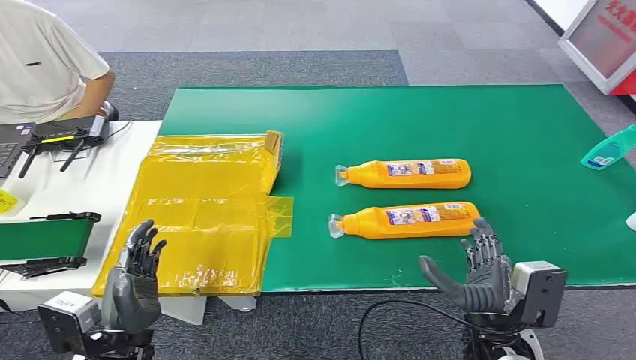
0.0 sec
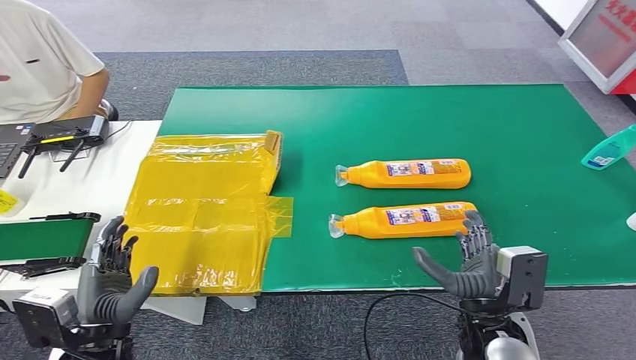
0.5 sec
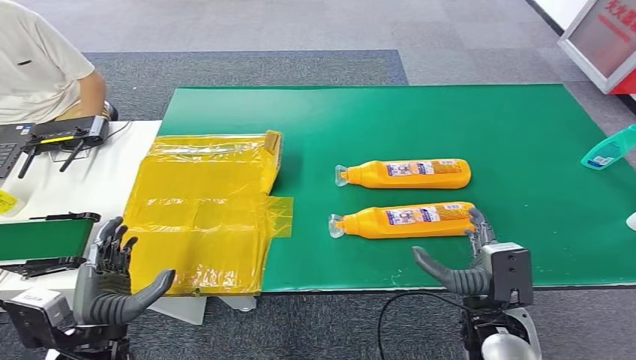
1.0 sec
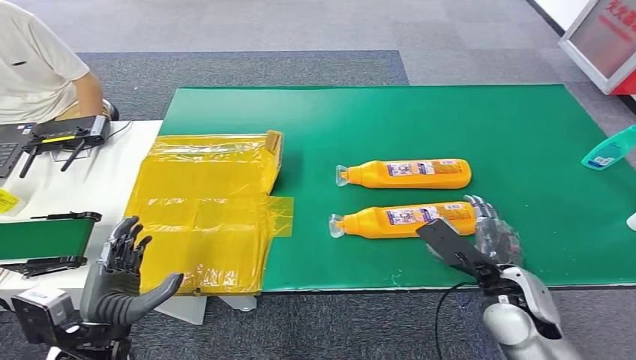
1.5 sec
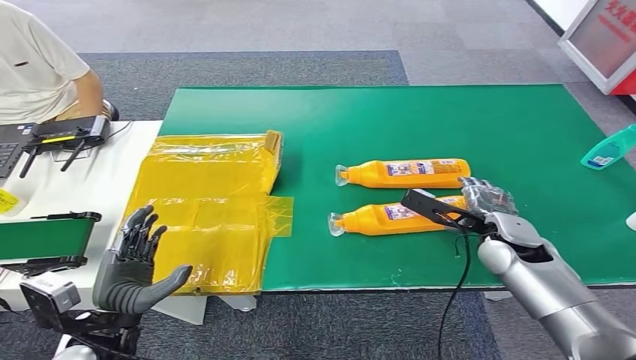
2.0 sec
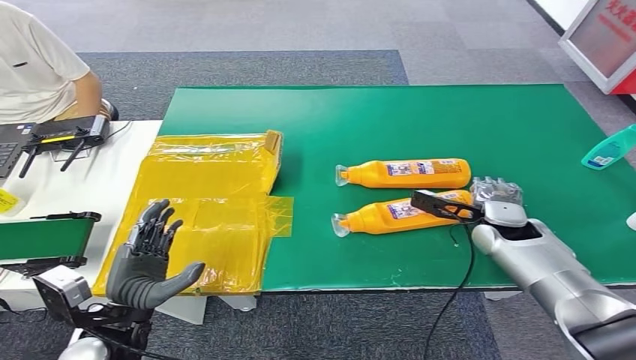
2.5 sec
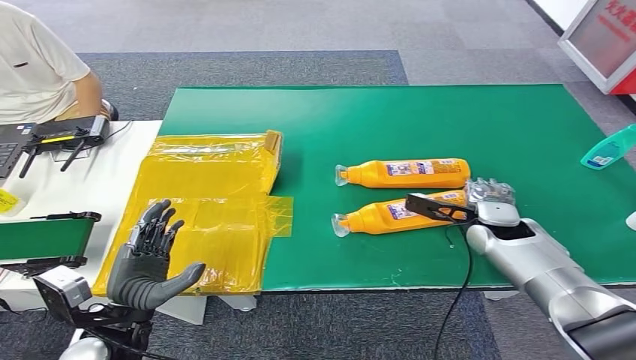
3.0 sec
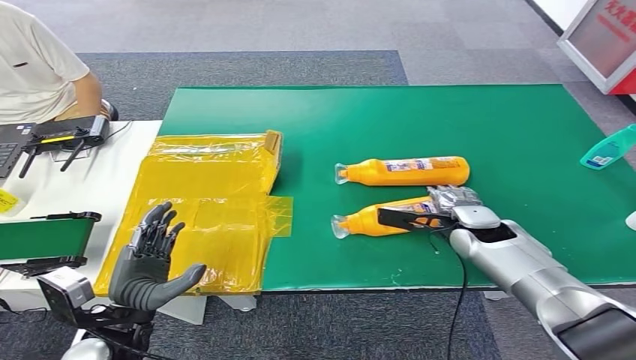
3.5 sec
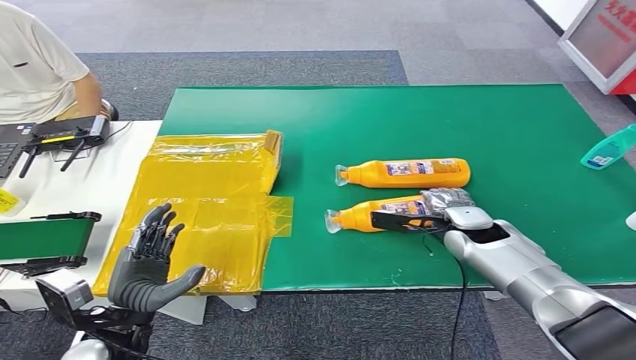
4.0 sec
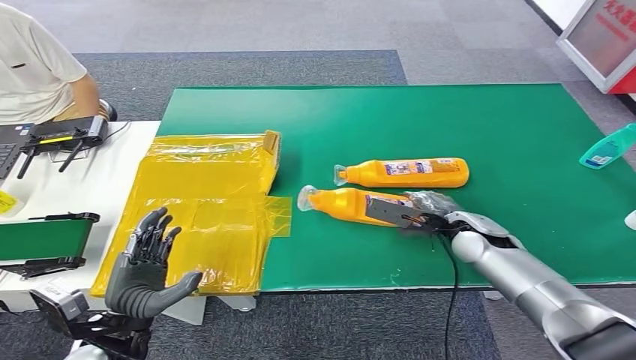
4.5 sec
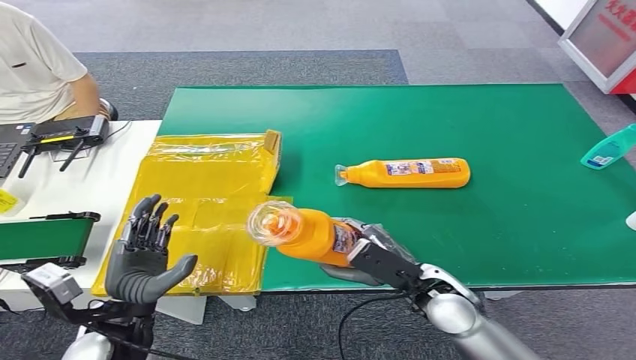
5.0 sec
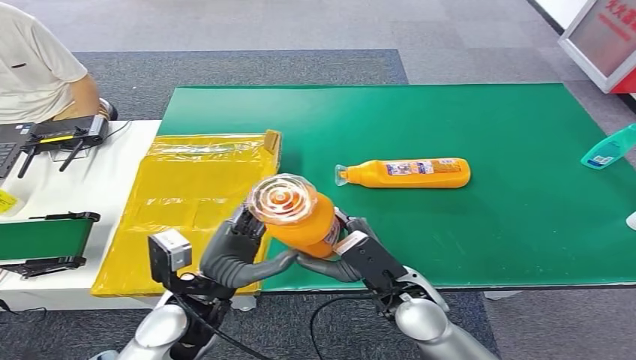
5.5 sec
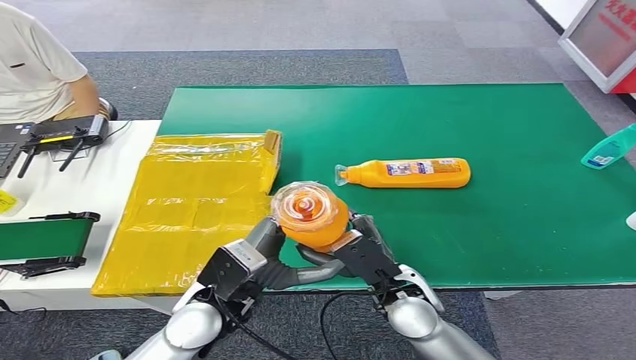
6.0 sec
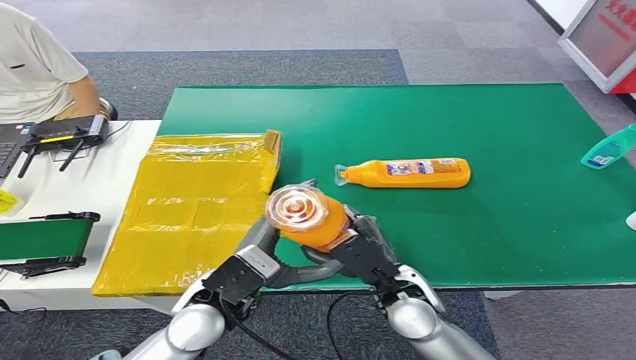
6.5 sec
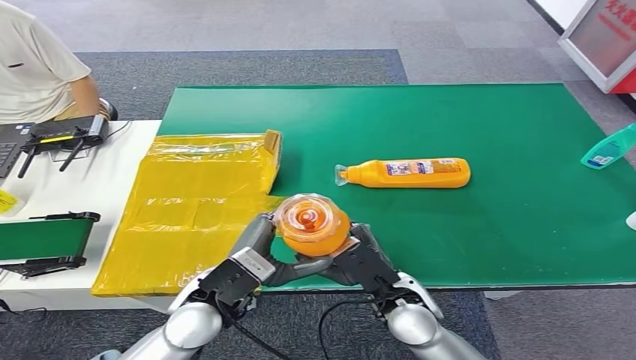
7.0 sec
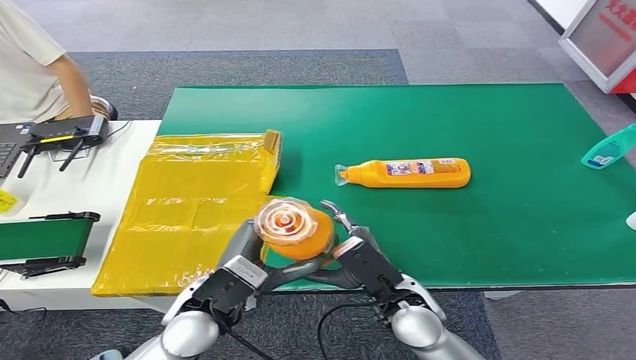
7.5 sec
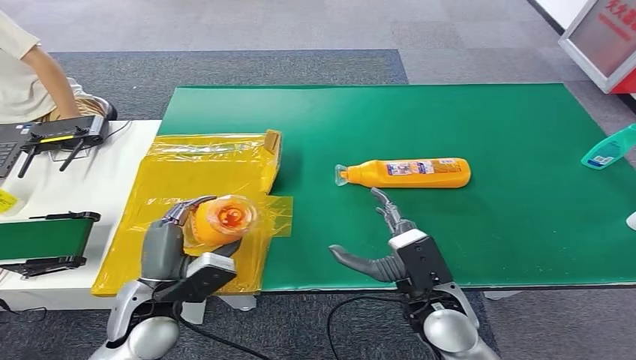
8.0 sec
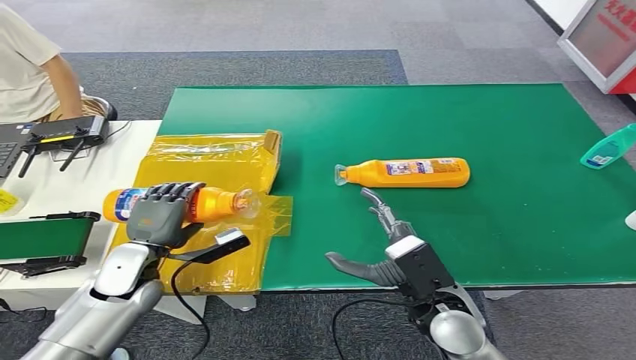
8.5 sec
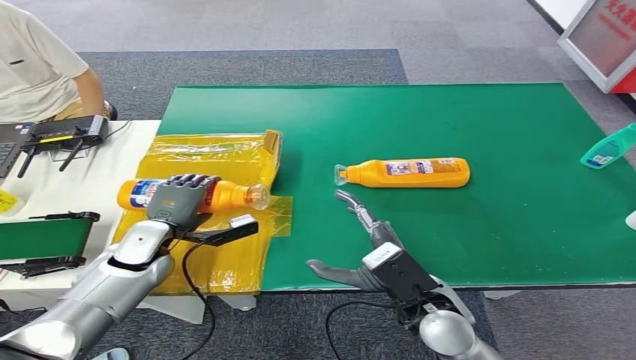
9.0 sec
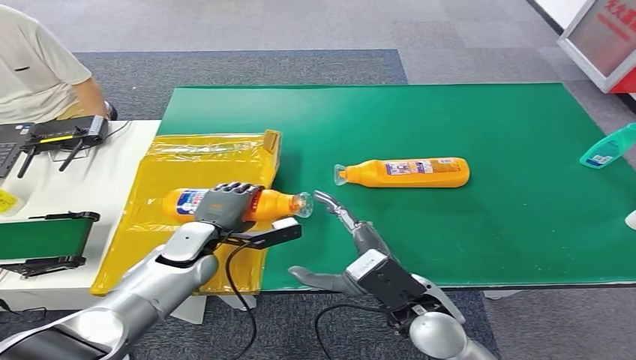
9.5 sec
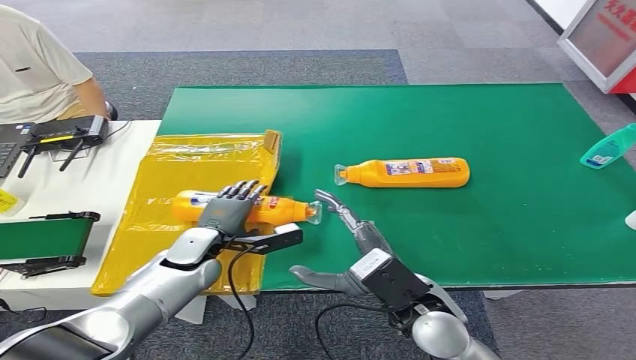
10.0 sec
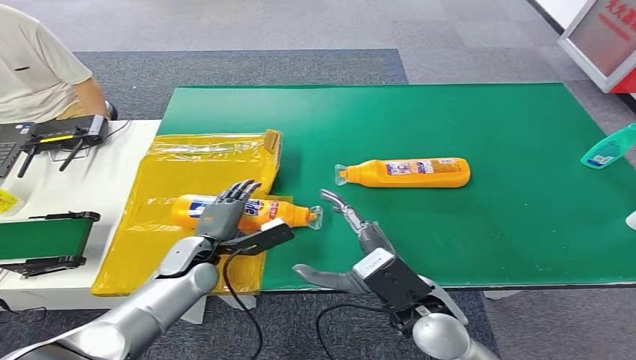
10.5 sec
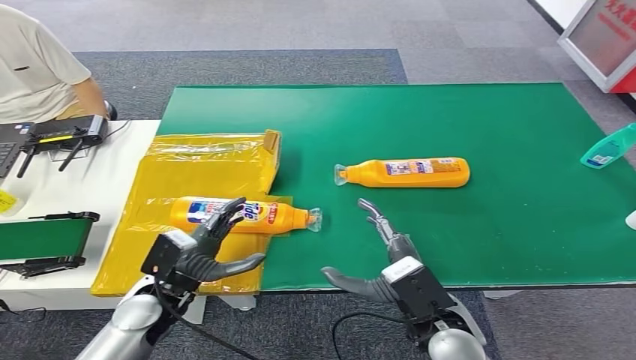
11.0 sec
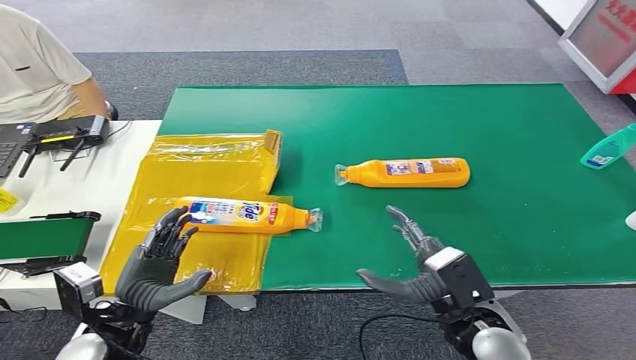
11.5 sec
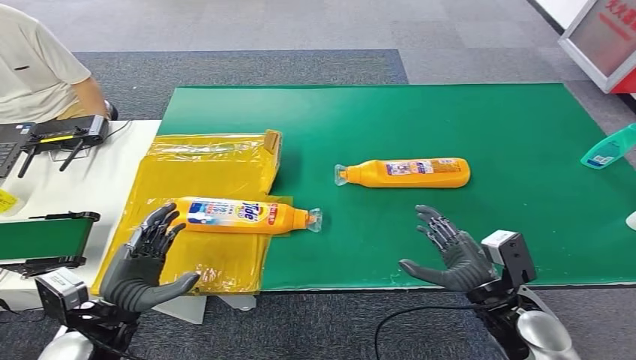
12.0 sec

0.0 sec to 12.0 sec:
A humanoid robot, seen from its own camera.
Step, 0.0 sec to 6.0 sec: Pick up the bottle from the table.
Step, 6.5 sec to 12.0 sec: Turn the bottle to the front side.
2.0 sec to 4.0 sec: The right hand ends up about 5 cm from where it was.
6.0 sec to 8.0 sec: The left hand shifts about 10 cm to the left.
8.0 sec to 10.0 sec: The left hand travels forward and downward by roughly 15 cm.
10.0 sec to 12.0 sec: The left hand goes about 20 cm backward and to the left, while the right hand moves to the right, approximately 15 cm.

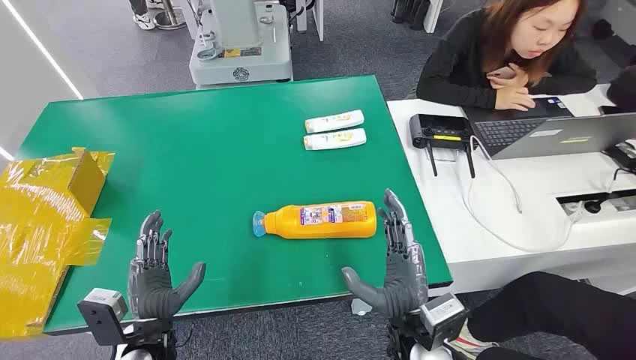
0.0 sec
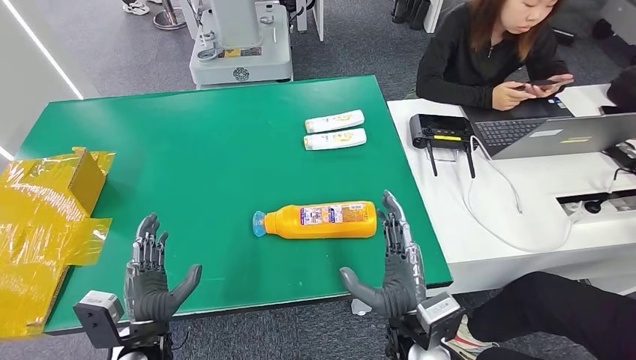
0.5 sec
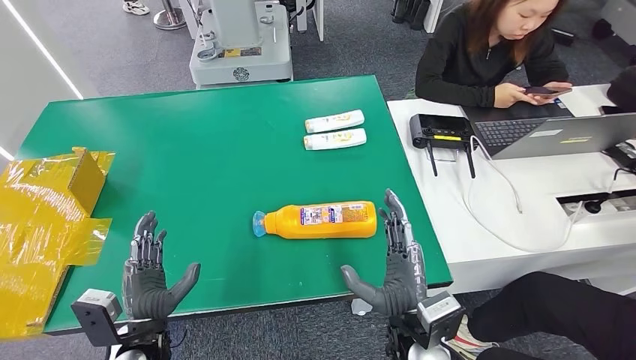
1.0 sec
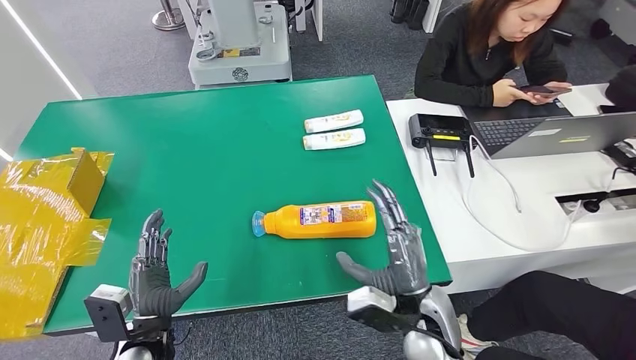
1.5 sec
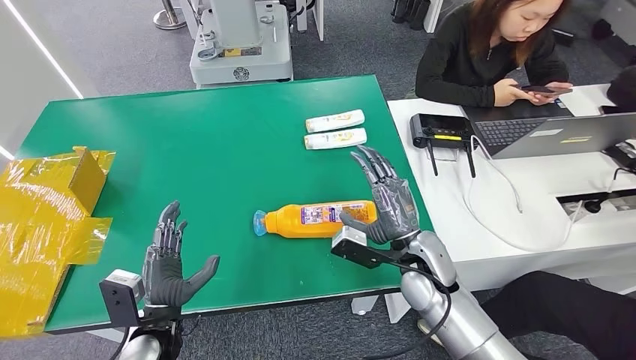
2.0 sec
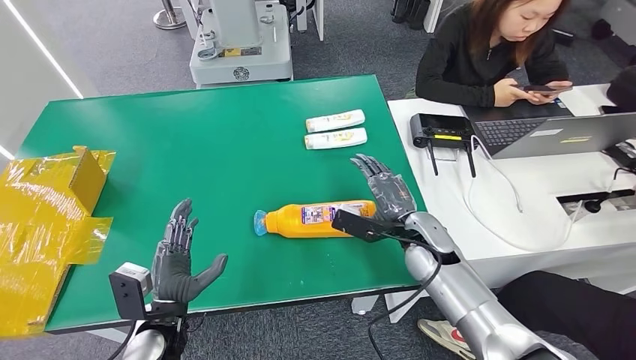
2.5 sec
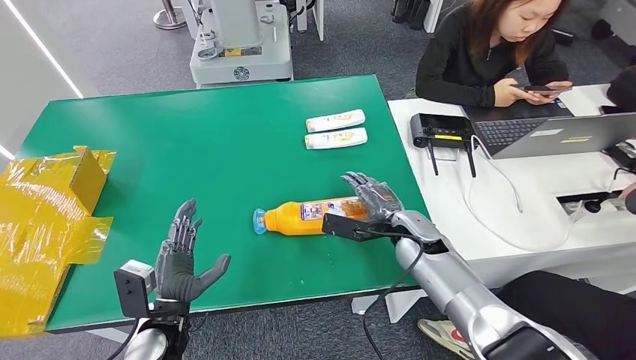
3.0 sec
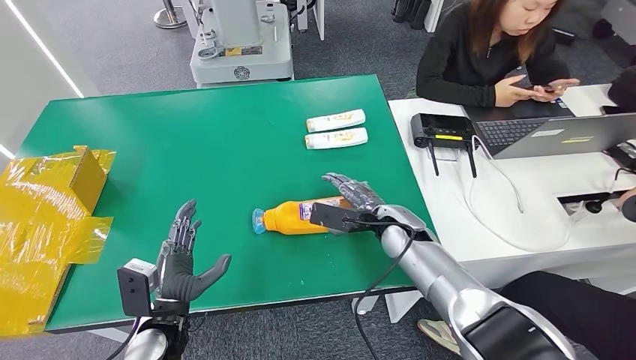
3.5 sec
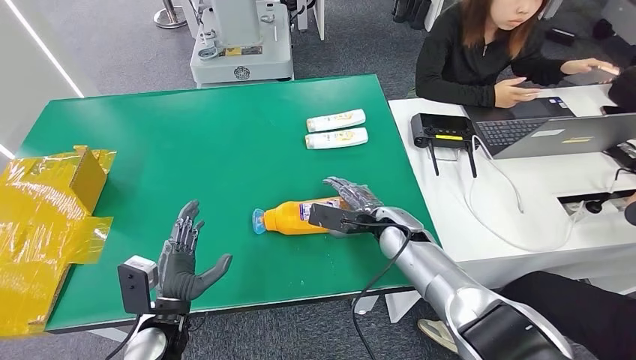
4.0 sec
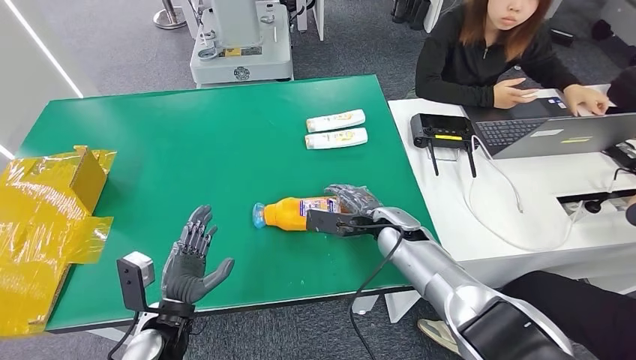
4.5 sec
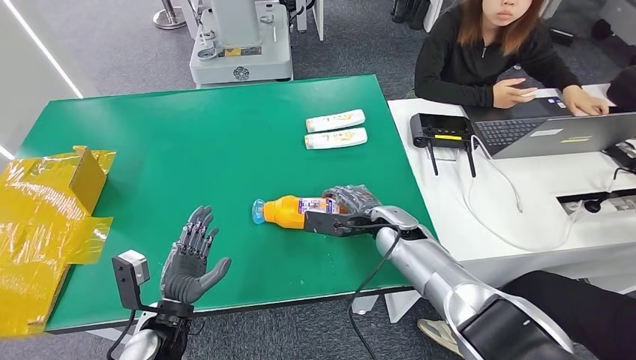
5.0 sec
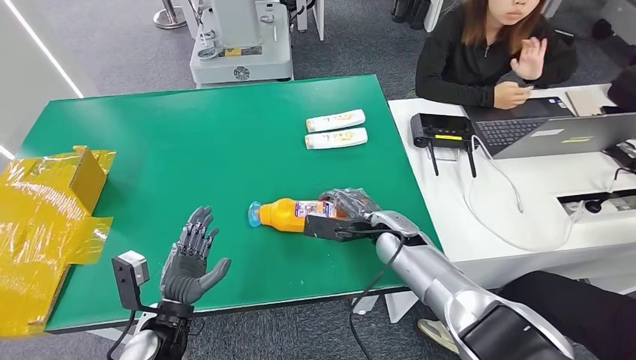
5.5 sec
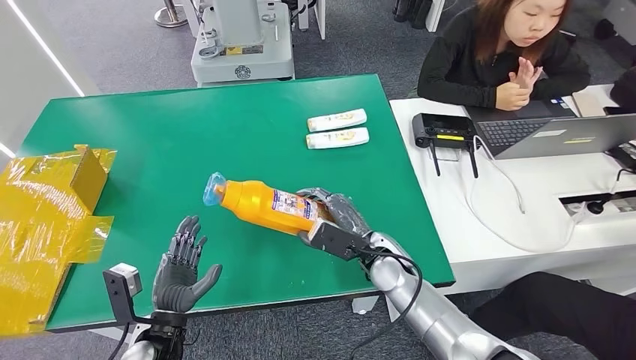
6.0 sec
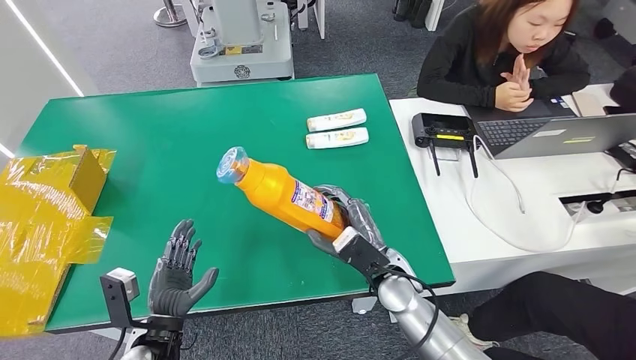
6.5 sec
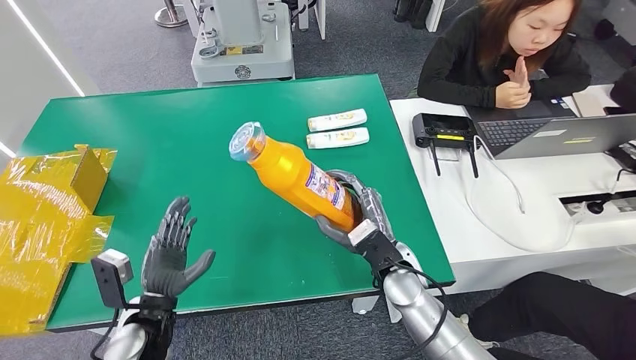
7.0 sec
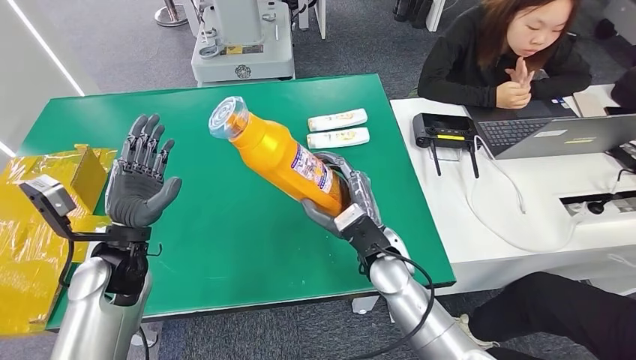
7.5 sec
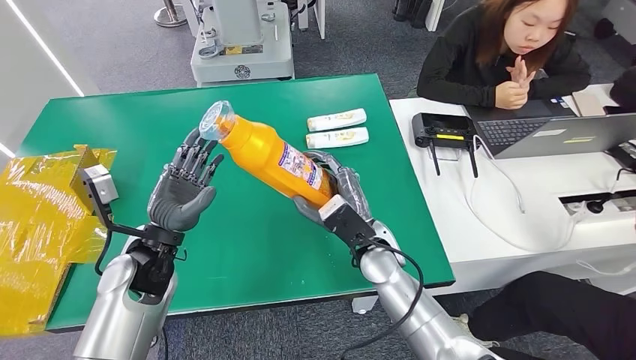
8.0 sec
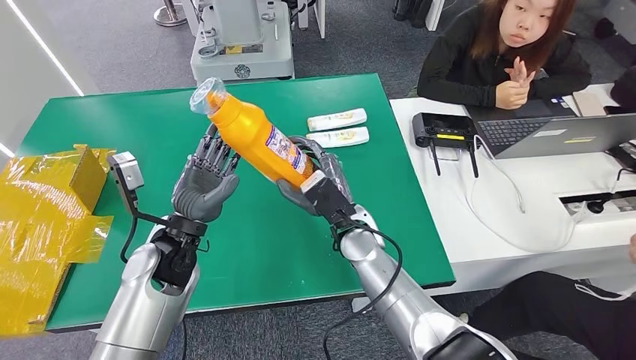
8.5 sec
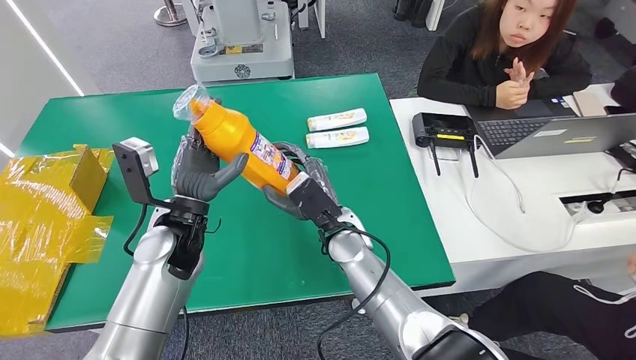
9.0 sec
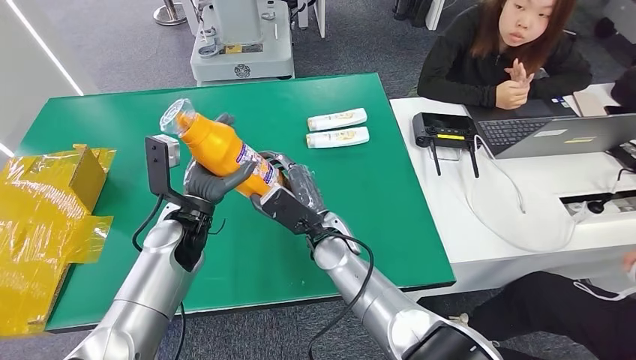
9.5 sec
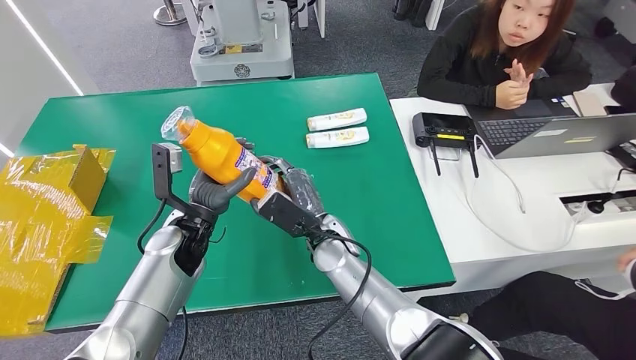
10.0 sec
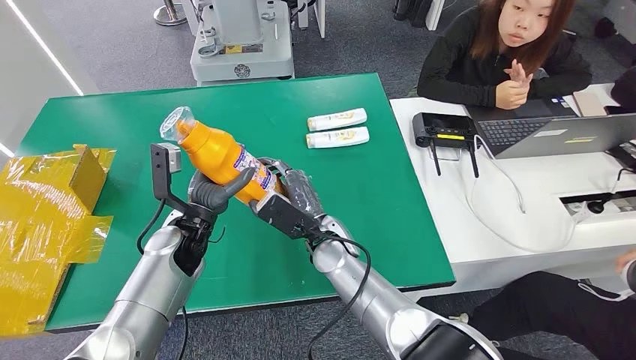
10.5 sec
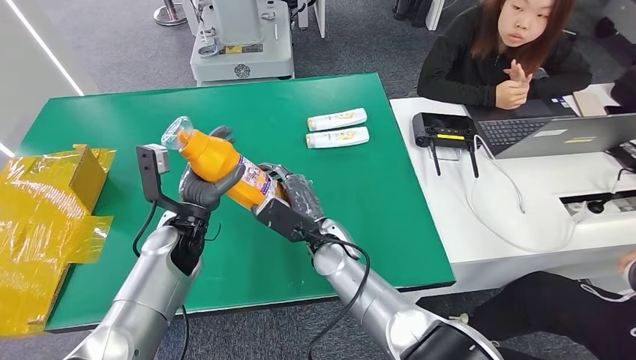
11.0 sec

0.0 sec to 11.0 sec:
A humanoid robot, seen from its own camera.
Step, 0.0 sec to 6.0 sec: Pick up the bottle from the table.
2.0 sec to 3.5 sec: The right hand travels forward by about 5 cm.
3.5 sec to 5.5 sec: There are only small adjustments of the hands.
9.0 sec to 11.0 sec: The left hand is displaced downward by approximately 5 cm.
